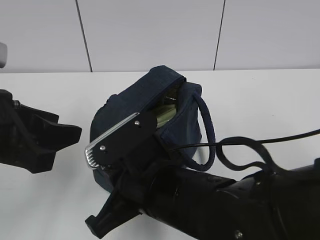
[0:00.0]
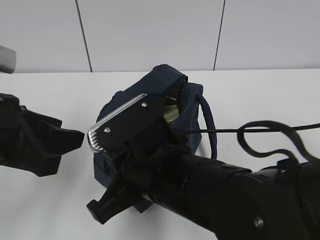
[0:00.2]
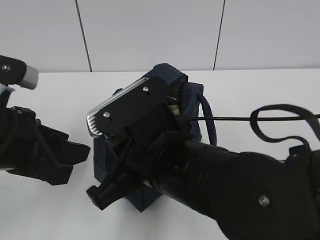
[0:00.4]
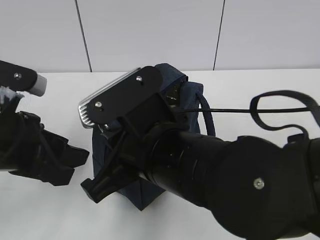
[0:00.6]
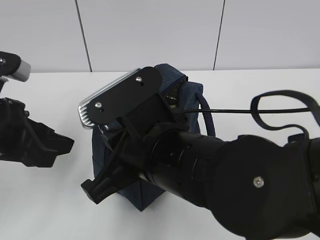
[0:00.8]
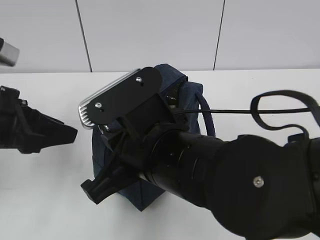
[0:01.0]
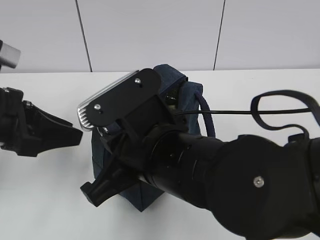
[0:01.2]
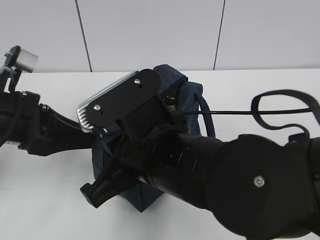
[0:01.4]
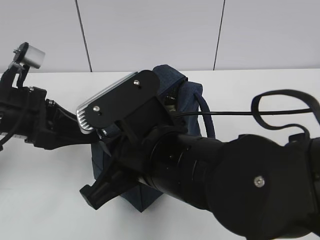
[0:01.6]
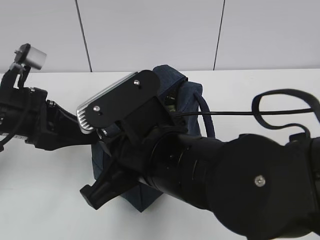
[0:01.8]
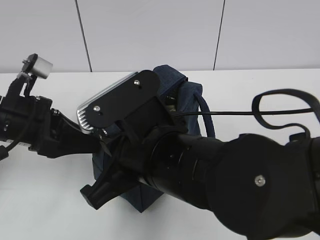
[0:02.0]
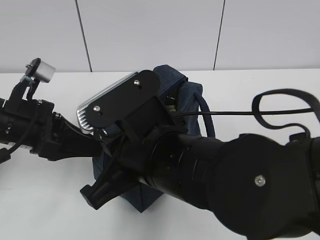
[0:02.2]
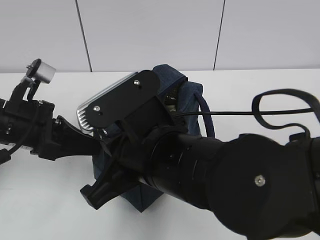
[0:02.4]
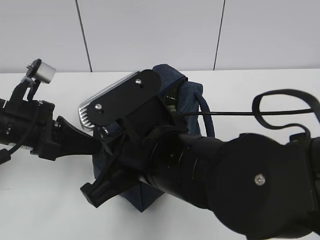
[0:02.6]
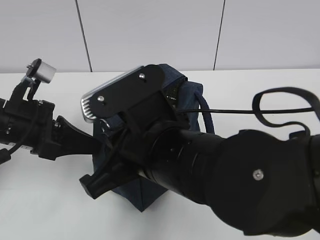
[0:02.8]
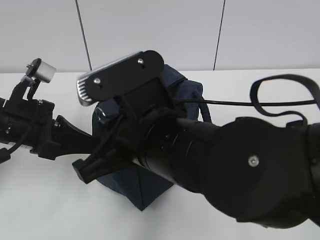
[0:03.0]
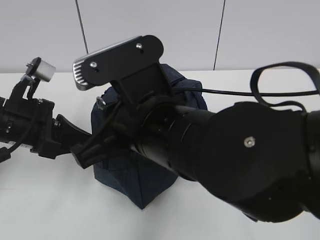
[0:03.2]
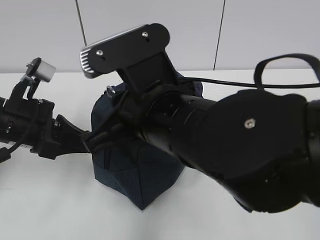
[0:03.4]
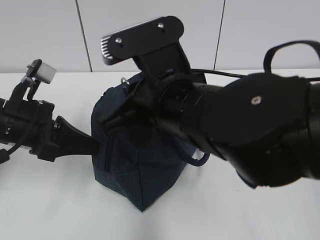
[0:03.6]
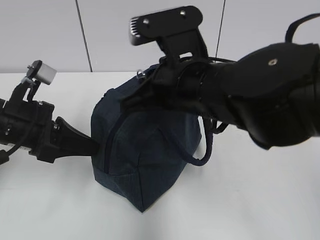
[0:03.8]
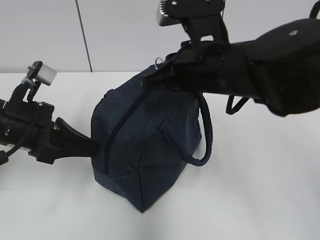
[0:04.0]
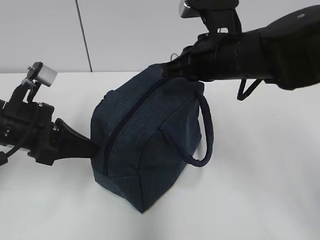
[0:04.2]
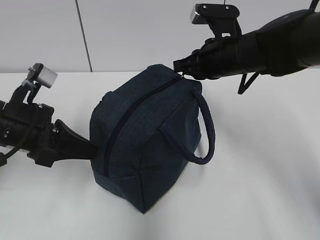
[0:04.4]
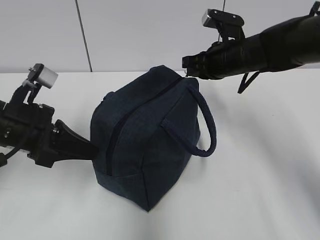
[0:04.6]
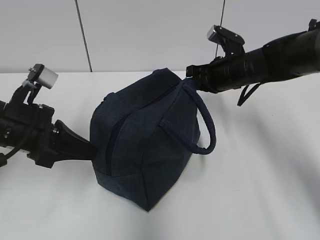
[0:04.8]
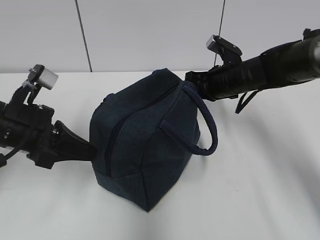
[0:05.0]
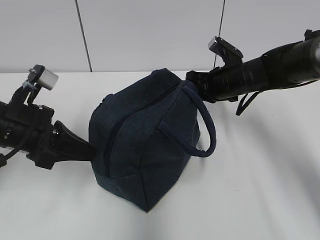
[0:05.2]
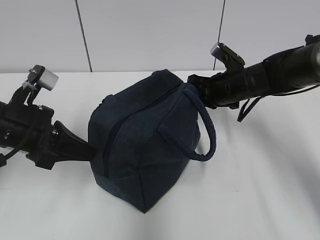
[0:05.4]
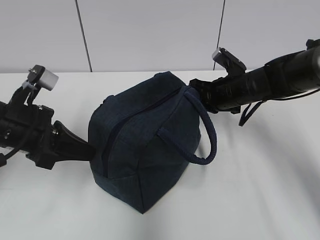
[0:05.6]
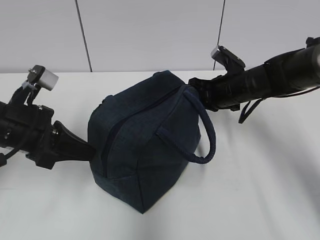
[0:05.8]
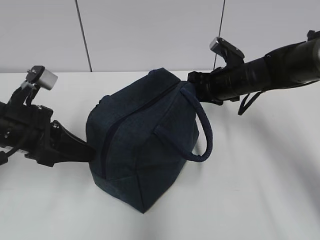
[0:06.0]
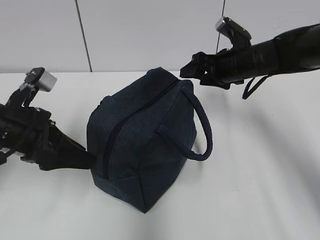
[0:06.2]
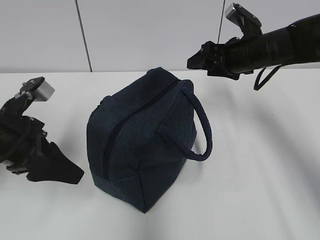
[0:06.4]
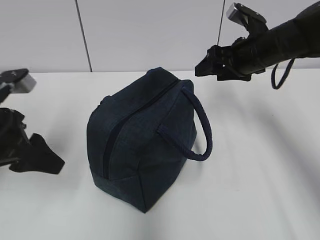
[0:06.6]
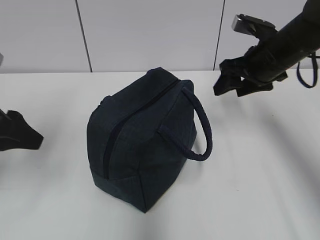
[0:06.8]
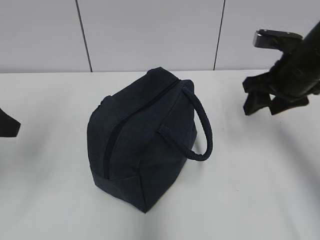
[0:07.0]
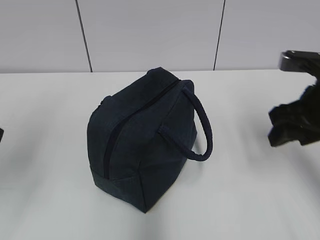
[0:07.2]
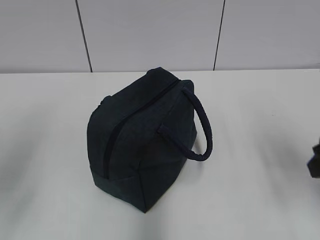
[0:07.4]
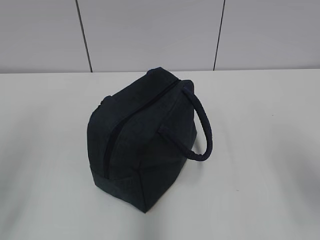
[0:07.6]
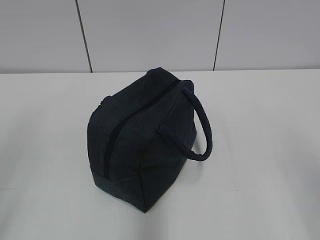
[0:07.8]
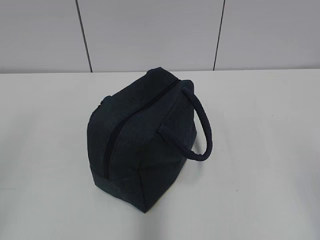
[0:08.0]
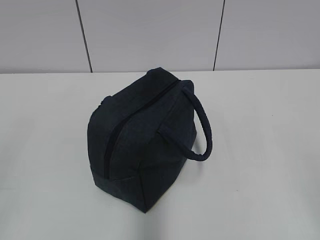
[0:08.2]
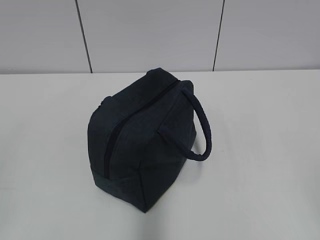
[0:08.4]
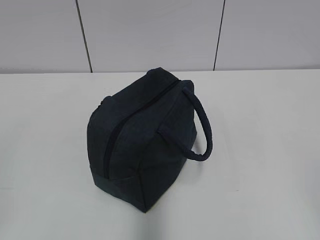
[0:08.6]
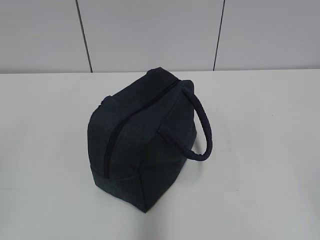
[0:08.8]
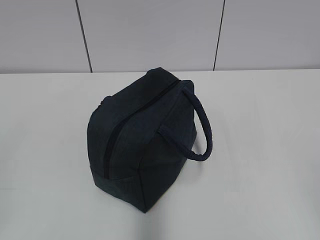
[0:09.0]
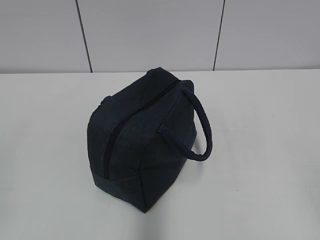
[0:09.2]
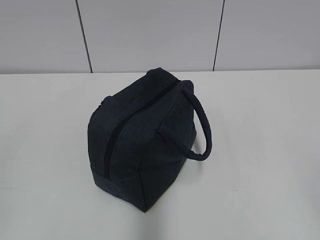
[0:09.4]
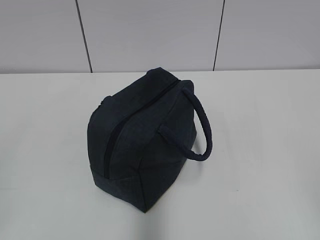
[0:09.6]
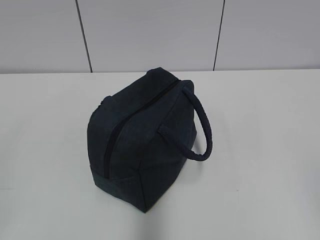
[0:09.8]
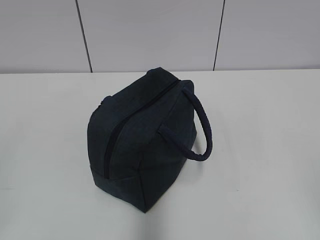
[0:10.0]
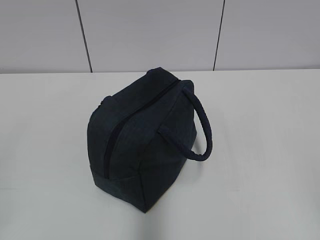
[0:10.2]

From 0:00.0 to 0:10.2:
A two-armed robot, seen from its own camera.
From 0:00.0 to 0:01.4: The left gripper travels forward by some 5 cm.
From 0:01.4 to 0:03.0: The left gripper closes up.
From 0:03.0 to 0:04.4: The right gripper is displaced forward and to the right by roughly 25 cm.
From 0:04.4 to 0:05.8: The right gripper shifts about 10 cm downward.
From 0:05.8 to 0:07.2: The right gripper is displaced backward, upward and to the right by approximately 20 cm, and opens up. Meanwhile the left gripper moves upward, backward and to the left, about 15 cm, and opens.
From 0:07.2 to 0:08.8: The right gripper shifts approximately 30 cm backward.
From 0:08.8 to 0:10.2: The two grippers keep their place.

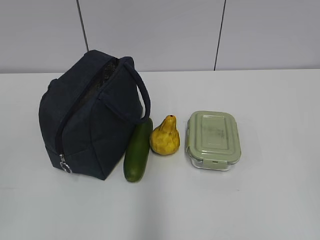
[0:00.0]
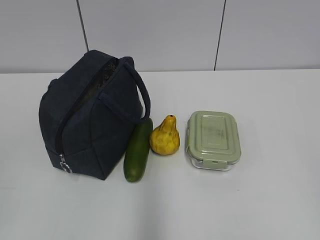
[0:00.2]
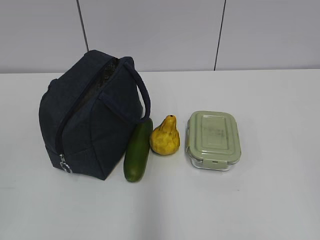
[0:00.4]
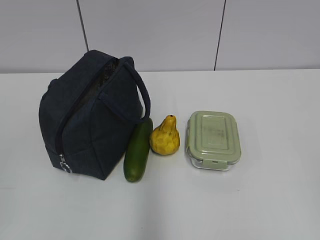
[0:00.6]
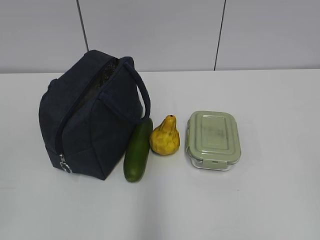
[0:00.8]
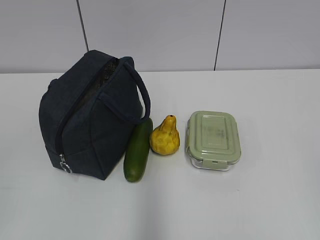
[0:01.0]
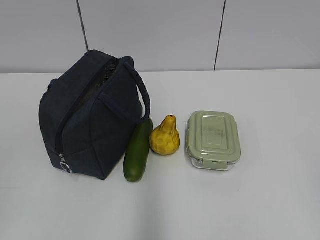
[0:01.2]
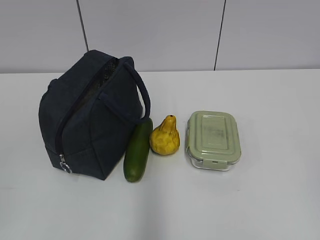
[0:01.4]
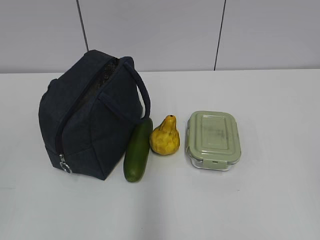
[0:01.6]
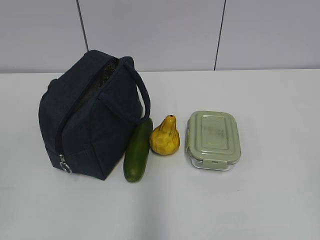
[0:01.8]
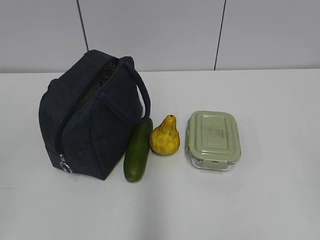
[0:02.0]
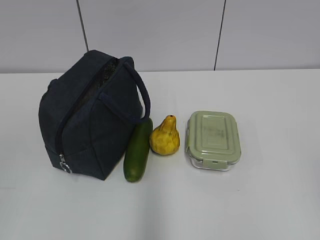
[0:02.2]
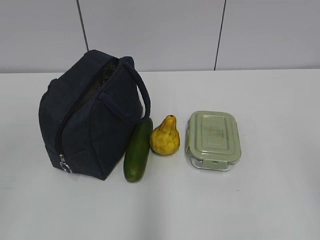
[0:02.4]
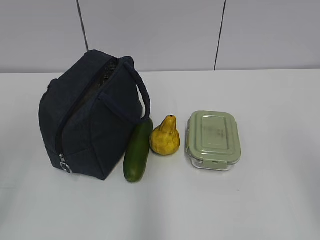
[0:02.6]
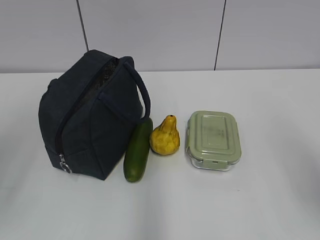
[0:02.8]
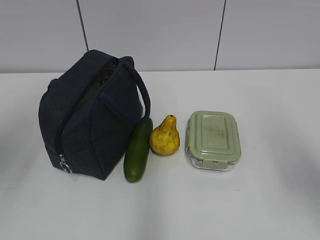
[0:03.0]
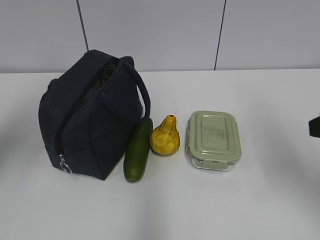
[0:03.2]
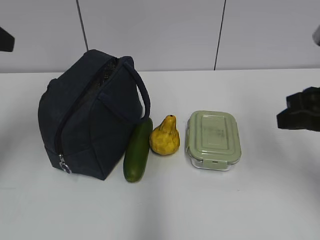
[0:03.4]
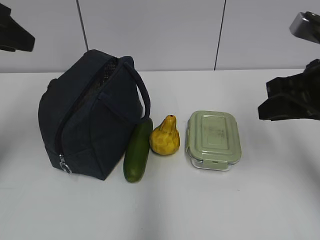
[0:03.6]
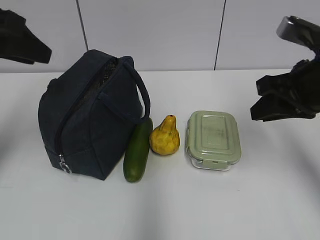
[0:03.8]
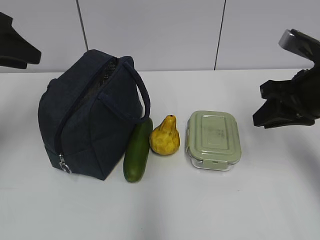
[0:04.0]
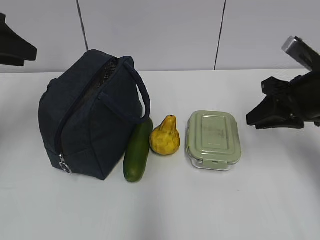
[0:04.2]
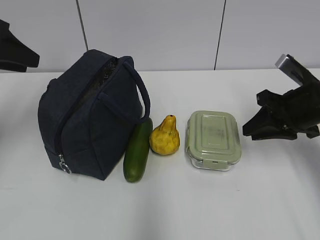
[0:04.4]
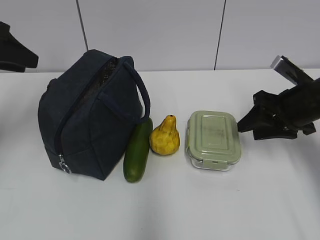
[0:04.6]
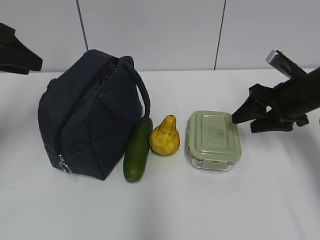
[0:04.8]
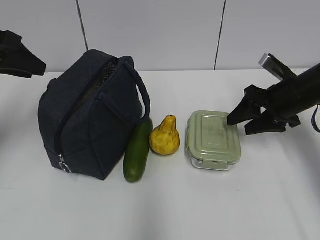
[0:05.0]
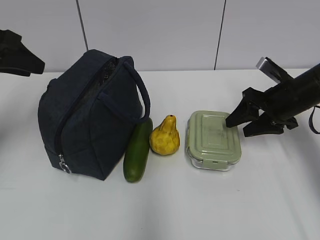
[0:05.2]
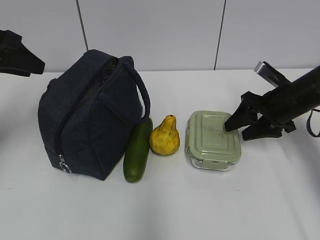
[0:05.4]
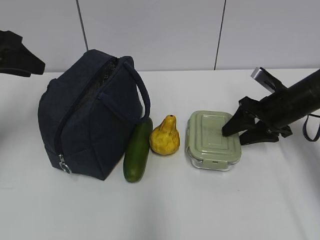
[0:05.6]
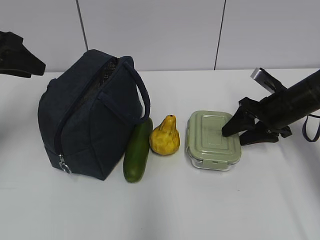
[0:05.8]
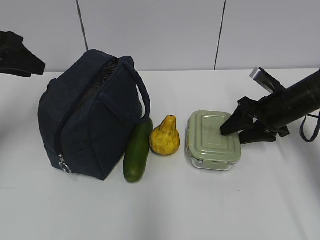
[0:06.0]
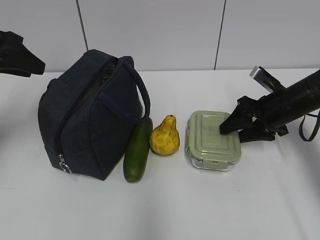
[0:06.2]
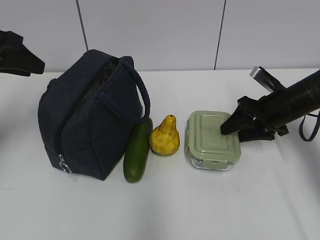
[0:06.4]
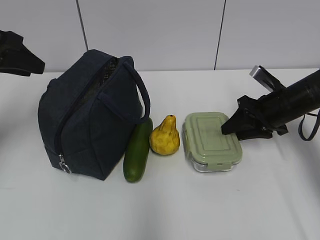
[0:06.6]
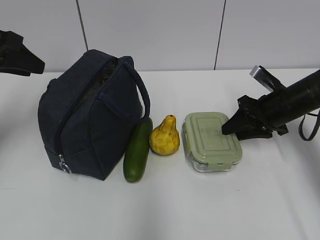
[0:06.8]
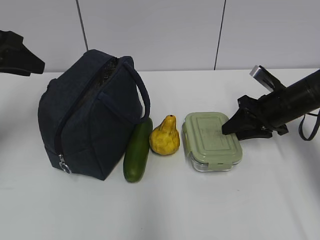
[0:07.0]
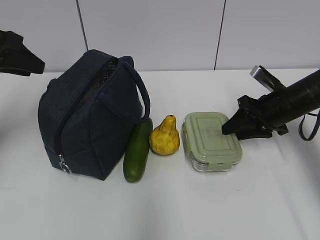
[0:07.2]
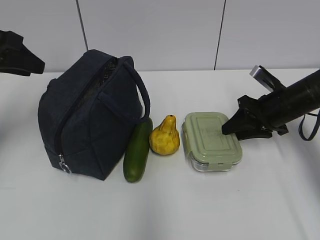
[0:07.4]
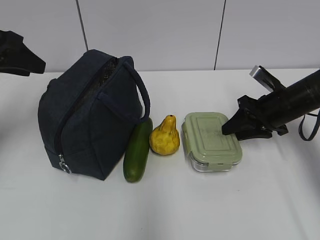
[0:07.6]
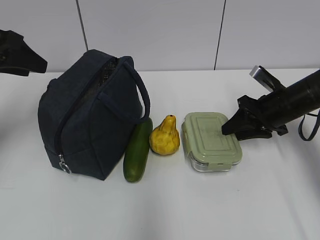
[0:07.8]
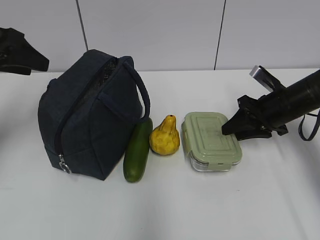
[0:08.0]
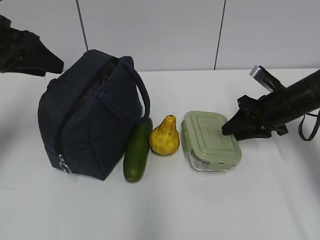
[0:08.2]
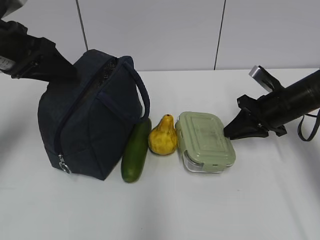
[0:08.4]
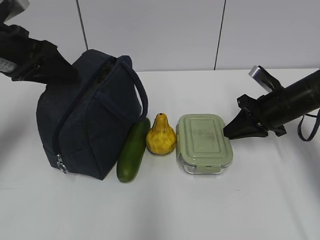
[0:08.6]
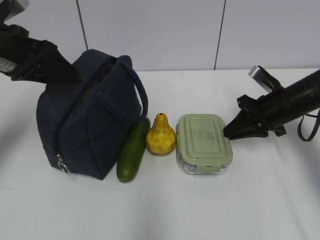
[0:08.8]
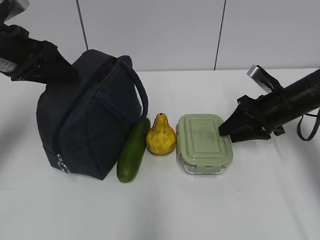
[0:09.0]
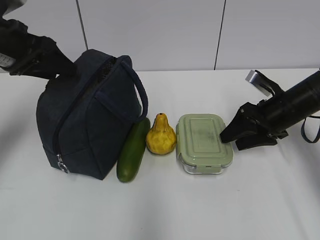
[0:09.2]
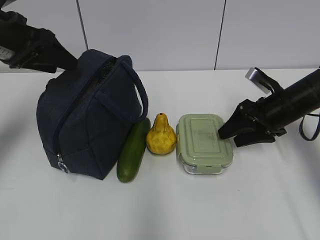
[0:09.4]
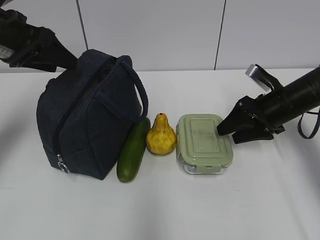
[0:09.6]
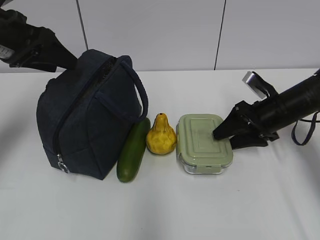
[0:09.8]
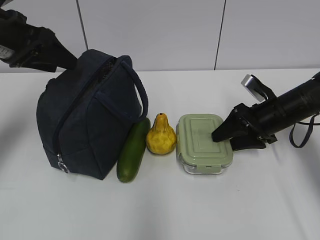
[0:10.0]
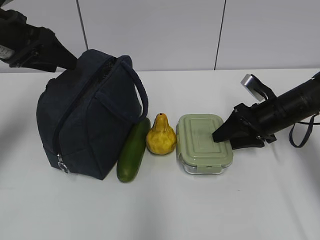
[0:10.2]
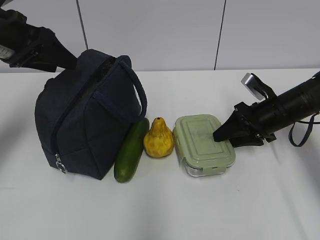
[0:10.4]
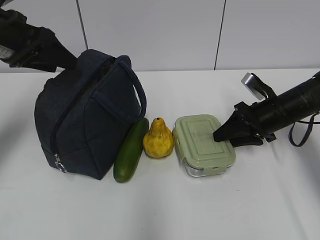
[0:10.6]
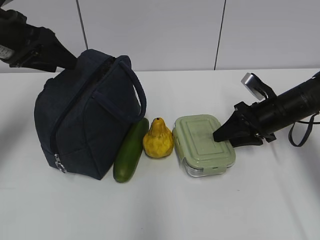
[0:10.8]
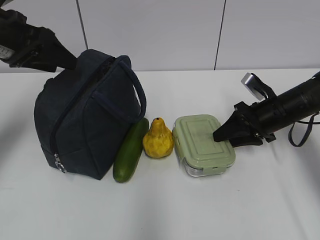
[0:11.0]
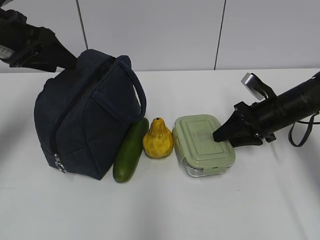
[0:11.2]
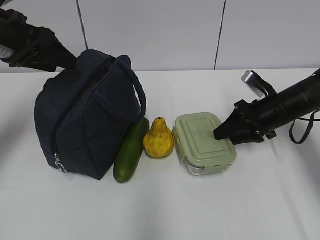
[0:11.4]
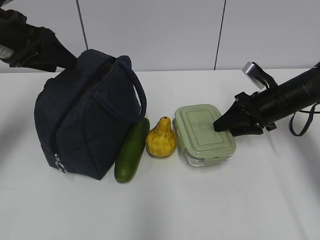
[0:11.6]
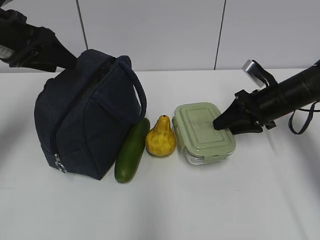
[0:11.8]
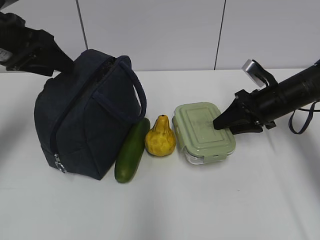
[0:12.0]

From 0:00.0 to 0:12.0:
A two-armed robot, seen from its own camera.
Step, from 0:00.0 to 0:10.6: Grab the lunch box with your right hand.
From 0:01.6 to 0:03.0: The right gripper goes about 15 cm forward, while the left gripper shifts about 15 cm forward and upward.
From 0:03.0 to 0:04.4: The right gripper heads forward and downward, covering roughly 20 cm. The left gripper goes about 15 cm forward.
From 0:04.4 to 0:06.0: The right gripper heads forward and downward, covering about 10 cm, and opens up.
From 0:06.0 to 0:07.6: The two grippers keep their place.
From 0:07.6 to 0:12.0: The grippers move only a little.
